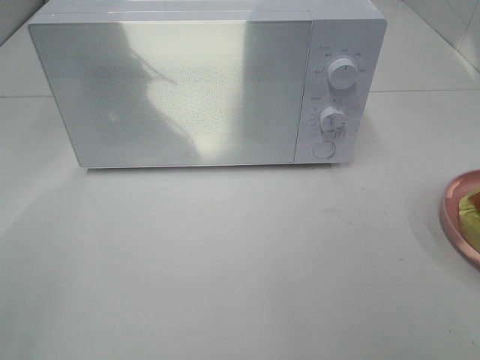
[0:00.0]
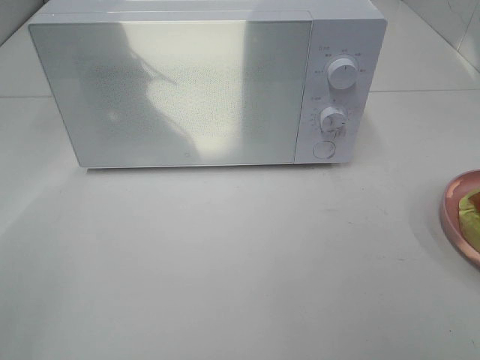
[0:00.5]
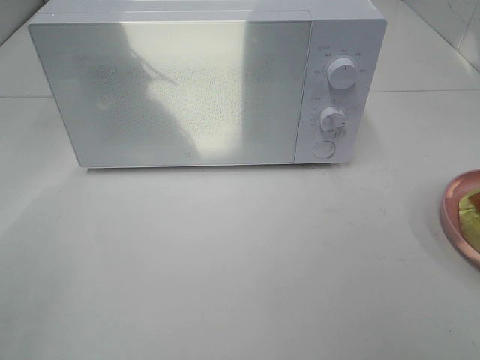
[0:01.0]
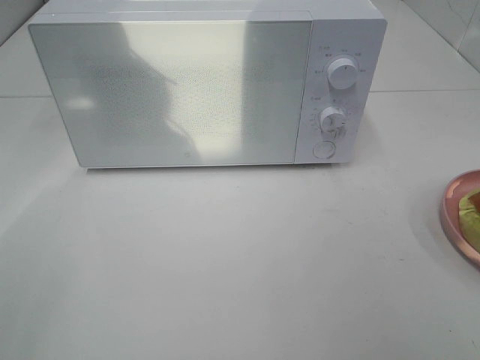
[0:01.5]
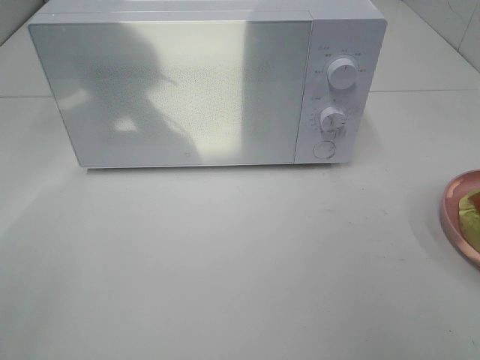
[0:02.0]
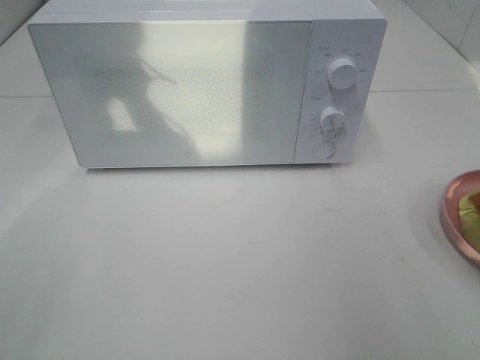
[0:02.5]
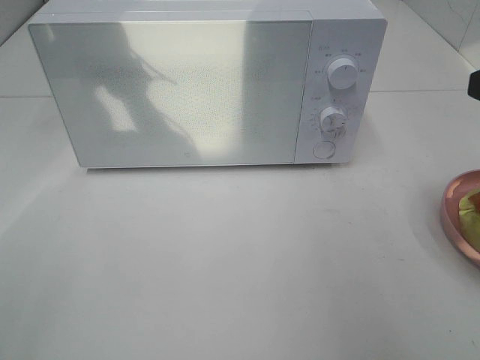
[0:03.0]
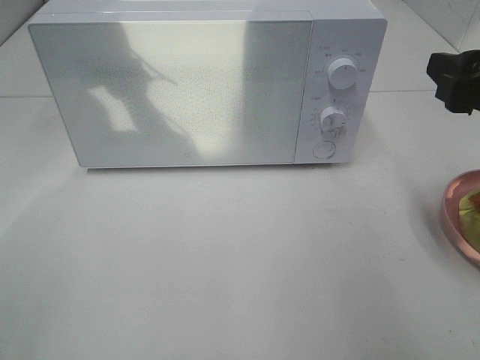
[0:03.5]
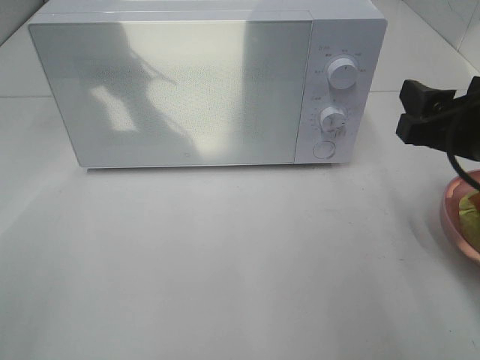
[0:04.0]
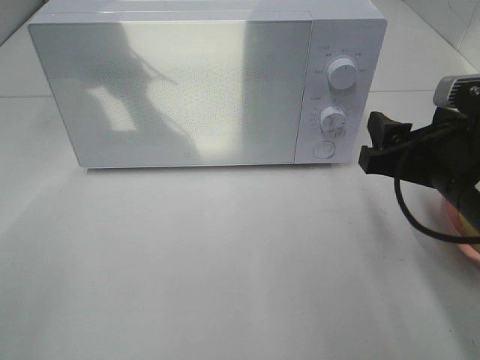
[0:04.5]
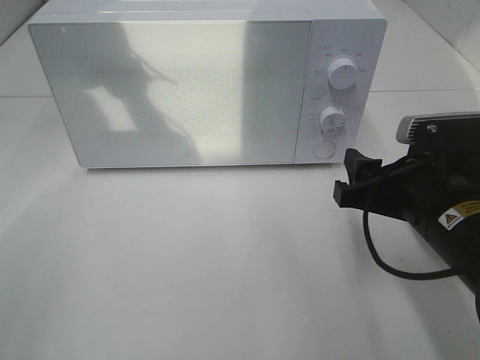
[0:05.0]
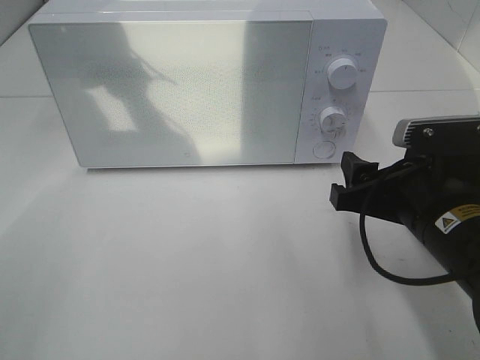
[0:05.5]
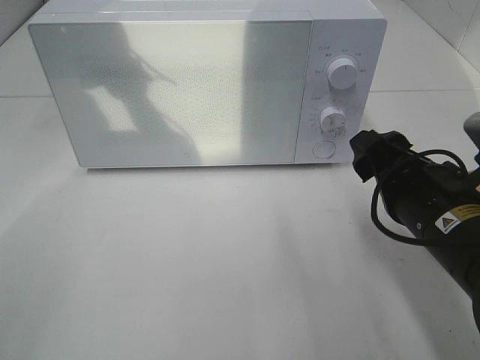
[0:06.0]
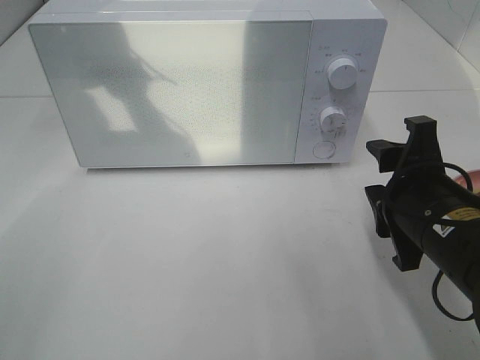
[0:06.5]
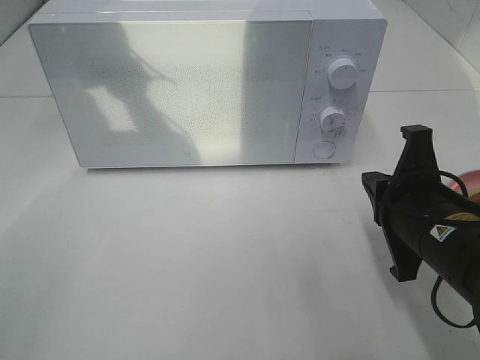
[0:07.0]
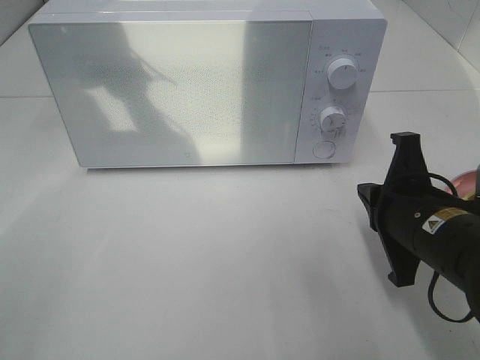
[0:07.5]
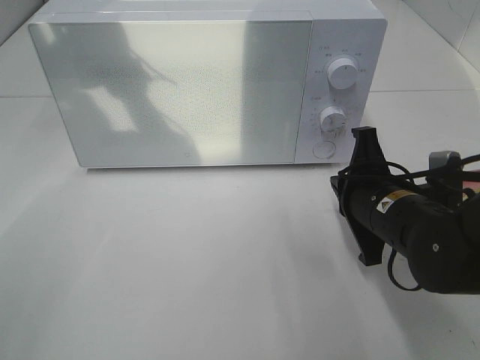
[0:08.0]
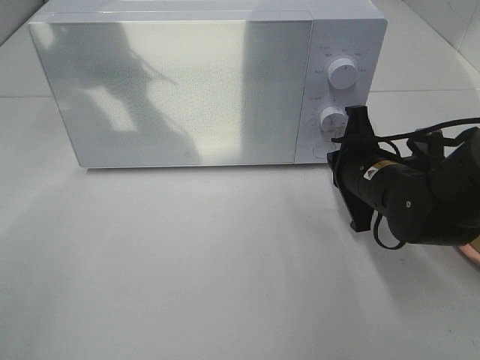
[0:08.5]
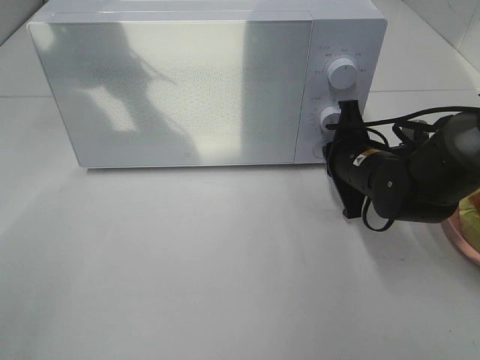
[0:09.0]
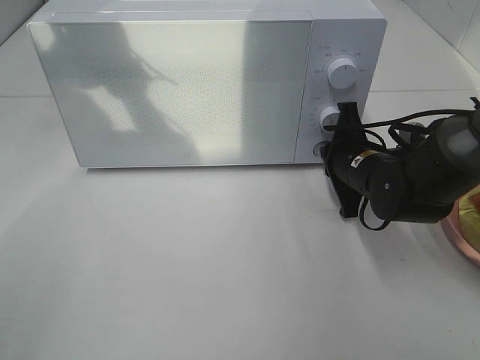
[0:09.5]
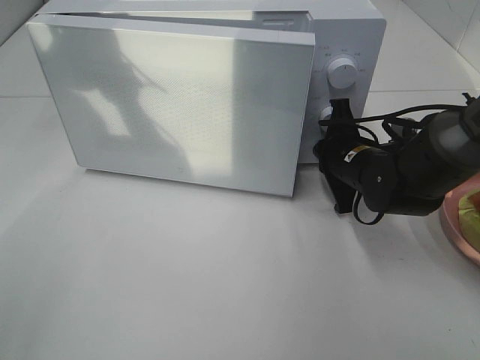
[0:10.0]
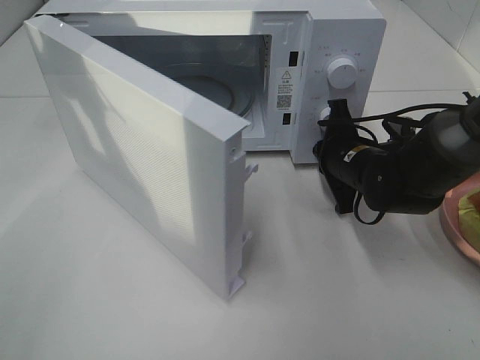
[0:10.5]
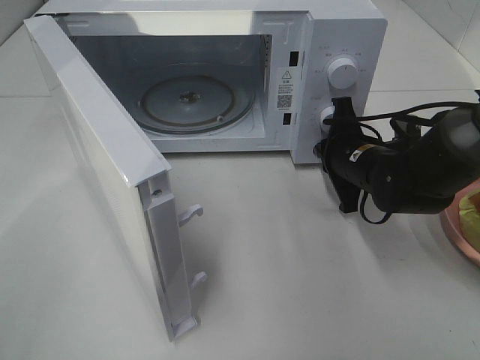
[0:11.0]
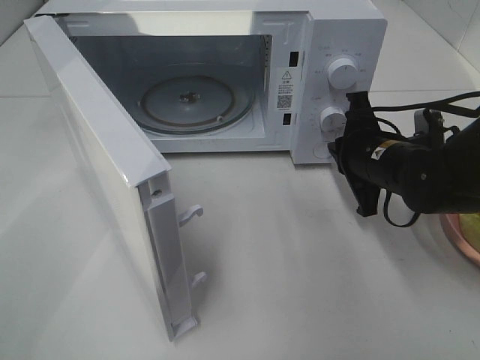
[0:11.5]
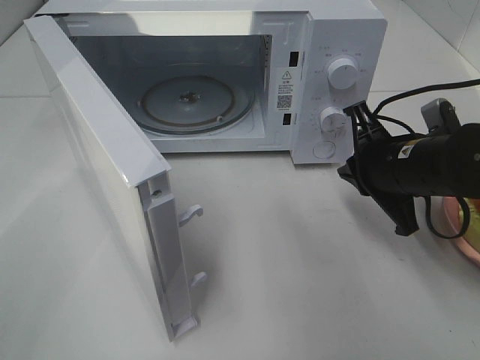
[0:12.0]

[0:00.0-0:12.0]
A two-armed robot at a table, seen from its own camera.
Task of the whole recording: Heat Sandwich.
Step, 0:00.0 to 0:11.5: Right hand: press the switch.
0:02.0 to 0:04.0: The right gripper goes some 15 cm forward, downward and to the left.
0:04.0 to 0:06.0: The right gripper heads downward, covering roughly 5 cm.
0:06.0 to 0:08.0: The right gripper heads forward, covering approximately 5 cm, and closes its fingers.
0:08.0 to 0:10.0: The right gripper is displaced forward by about 10 cm.
0:10.0 to 0:12.0: The right gripper is displaced backward and upward by some 10 cm.

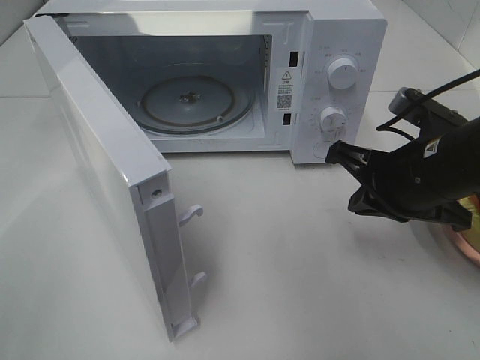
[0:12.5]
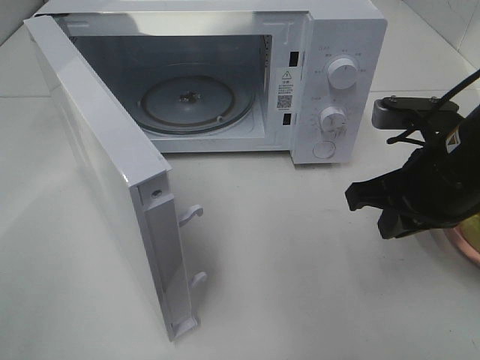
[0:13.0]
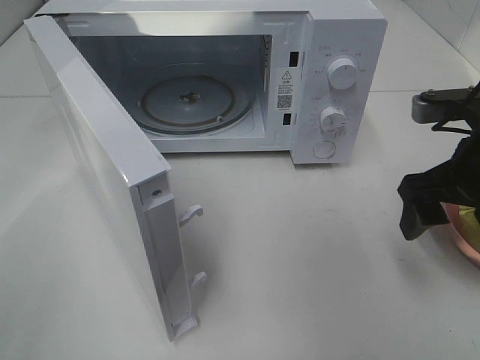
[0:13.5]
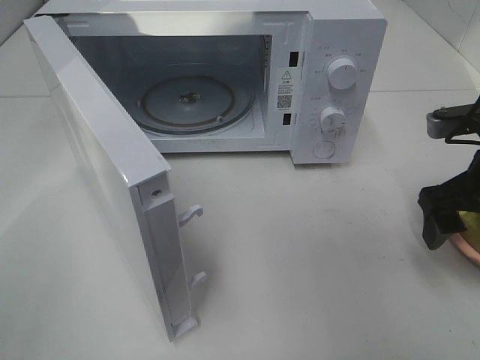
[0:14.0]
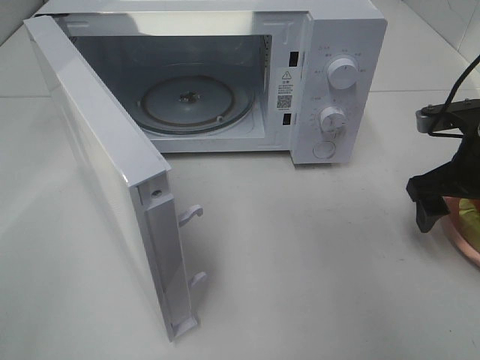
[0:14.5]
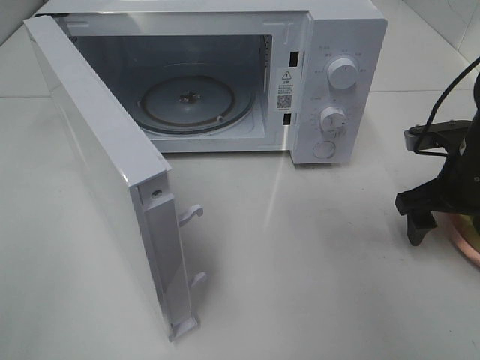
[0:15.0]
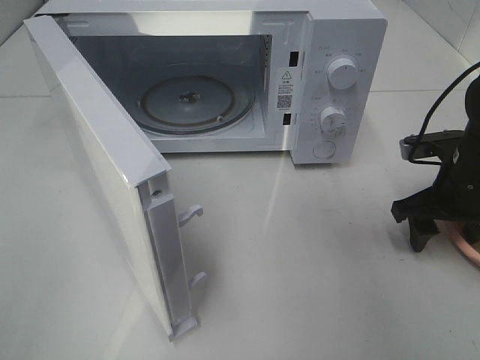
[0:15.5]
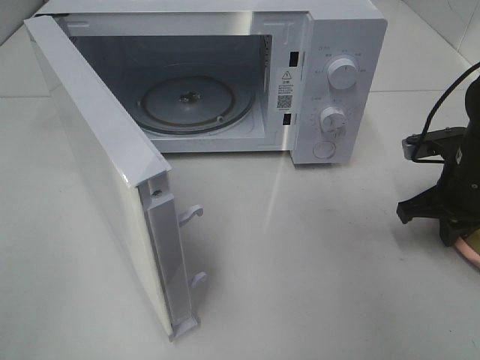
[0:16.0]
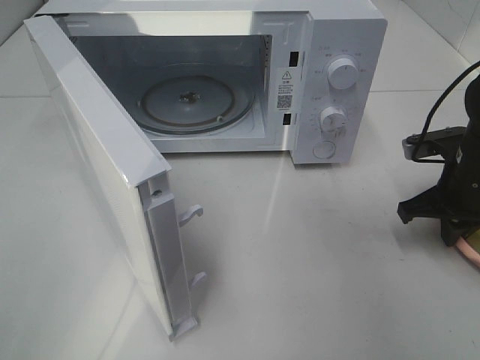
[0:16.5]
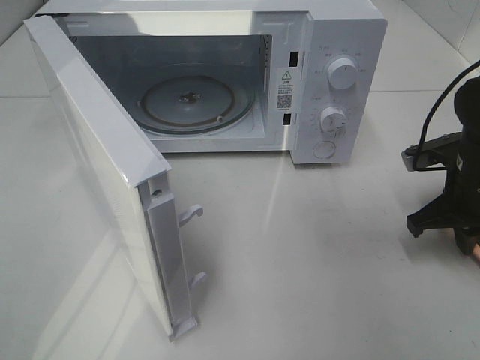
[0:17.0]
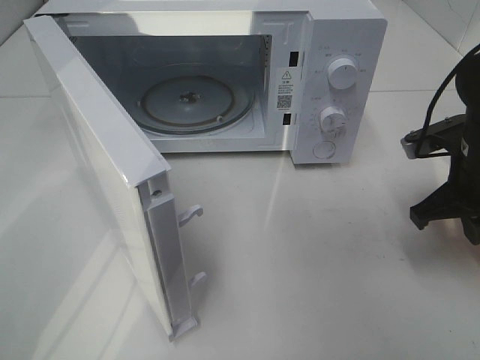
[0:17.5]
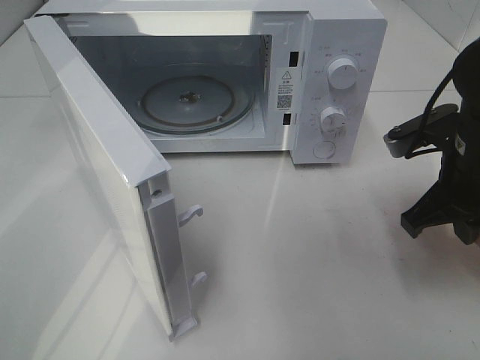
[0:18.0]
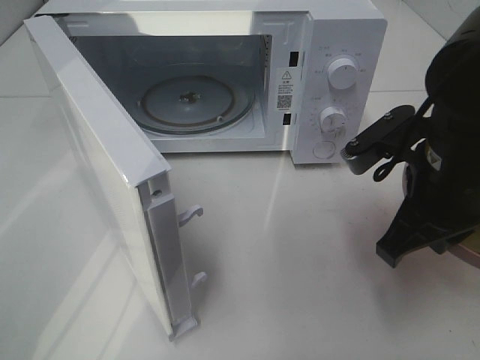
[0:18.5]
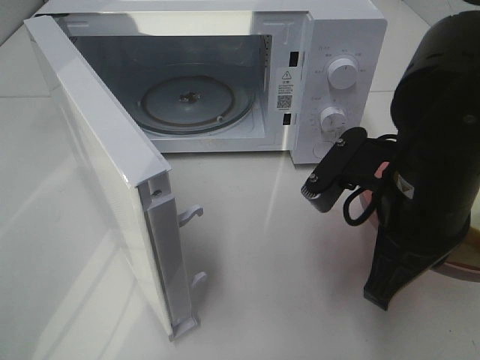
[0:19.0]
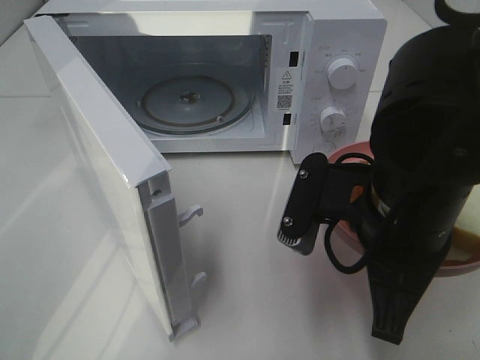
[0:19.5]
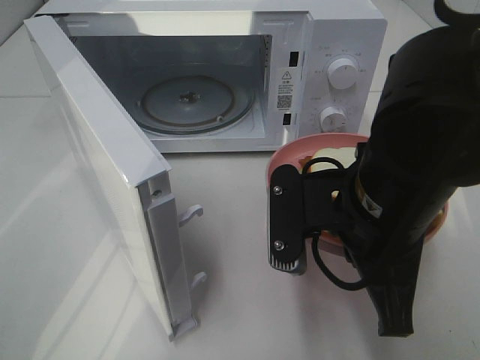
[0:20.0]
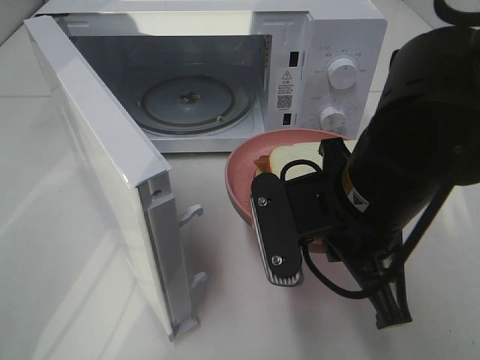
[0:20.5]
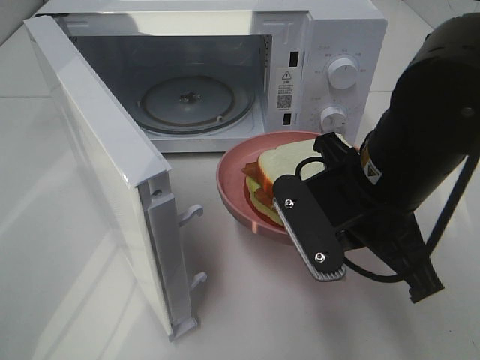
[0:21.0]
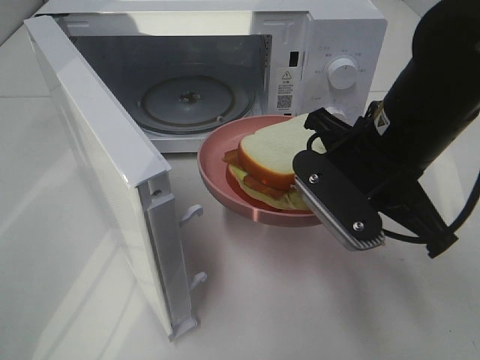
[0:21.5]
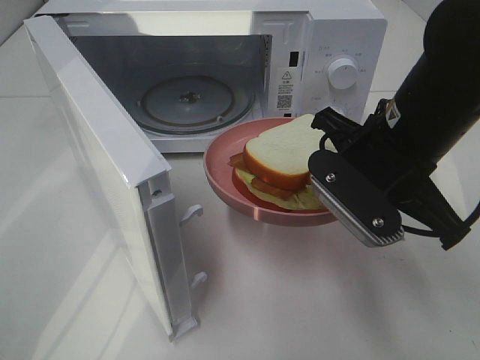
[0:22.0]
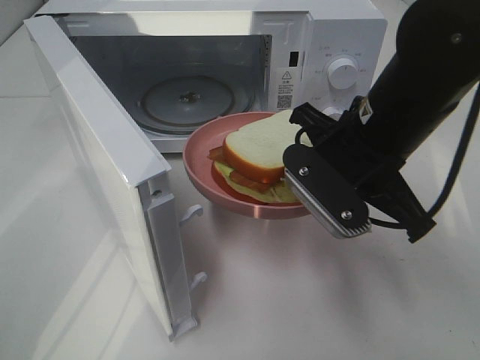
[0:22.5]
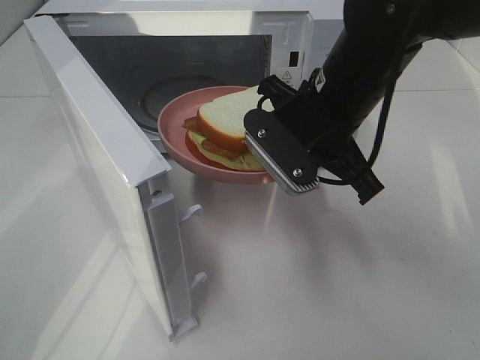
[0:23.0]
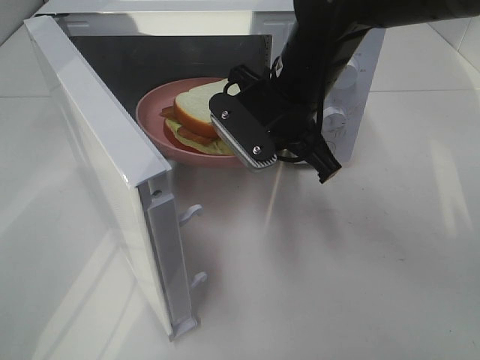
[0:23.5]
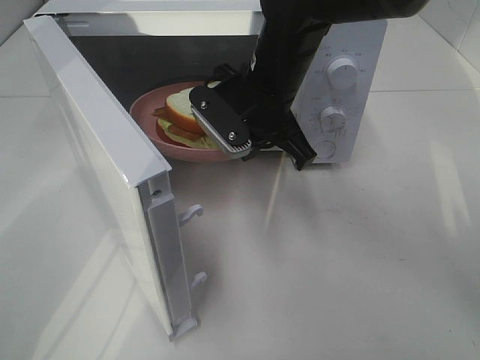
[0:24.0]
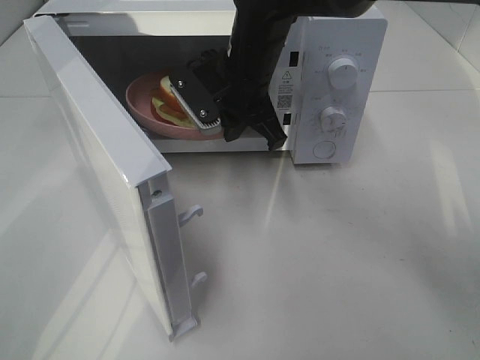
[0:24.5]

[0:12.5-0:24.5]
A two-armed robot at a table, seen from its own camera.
Task of the whole recording: Heat Sandwich.
Step, 0:12.5 to 0:16.5: Right hand: grab the plate with the sandwich.
0:12.5 to 0:14.5: The right gripper shifts roughly 10 cm to the right, and opens its fingers.
0:14.5 to 0:16.5: The right gripper closes its fingers.
0:16.5 to 0:18.5: The right gripper heads to the left, backward and upward, covering roughly 15 cm.
0:18.5 to 0:20.5: The right gripper is displaced to the left by roughly 10 cm.
0:20.5 to 0:22.5: The right gripper is displaced forward by roughly 5 cm.
0:22.5 to 0:24.5: The right gripper heads forward and to the left, covering roughly 20 cm.

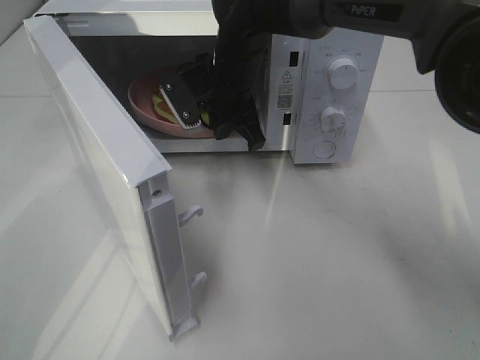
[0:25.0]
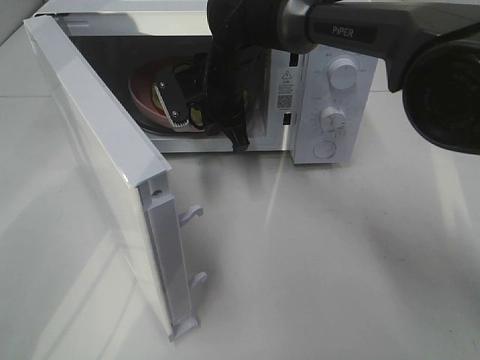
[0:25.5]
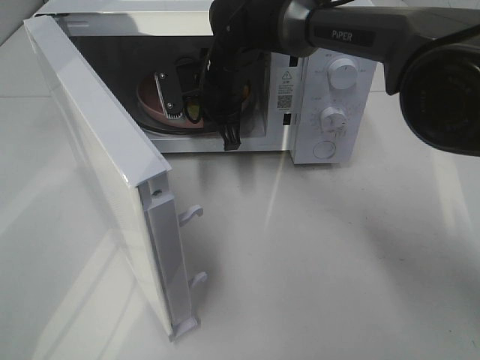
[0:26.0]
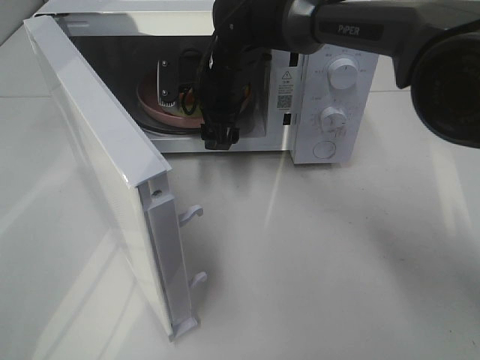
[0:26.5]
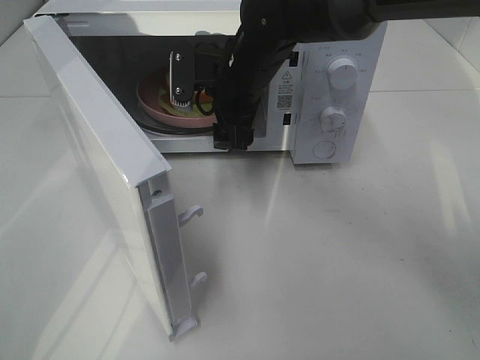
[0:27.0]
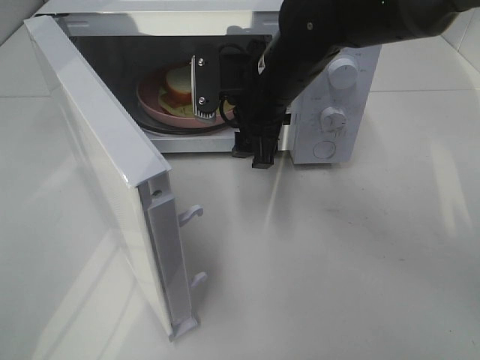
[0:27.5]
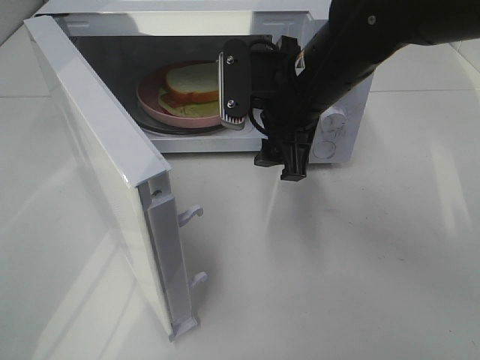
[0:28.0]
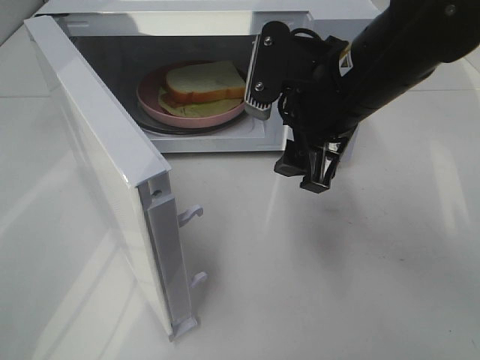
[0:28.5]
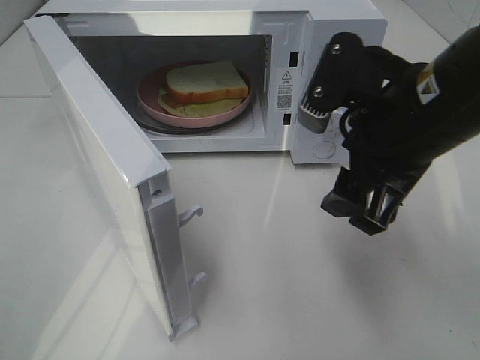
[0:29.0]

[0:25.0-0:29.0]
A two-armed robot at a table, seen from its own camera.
Task of the whole recording: Heat Sandwich.
0:25.0 to 0:27.0: The right gripper opens its fingers.
0:27.0 to 0:29.0: The right gripper heads backward and to the right, covering about 20 cm.
